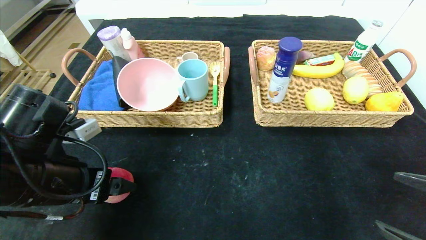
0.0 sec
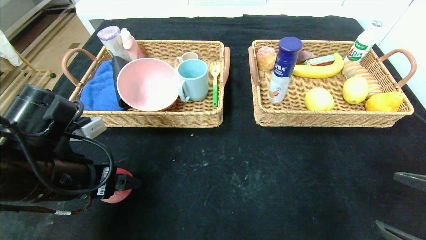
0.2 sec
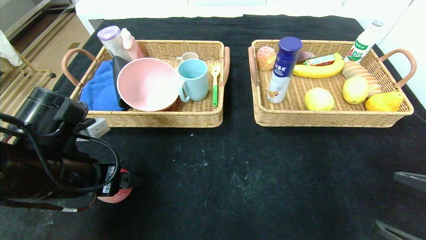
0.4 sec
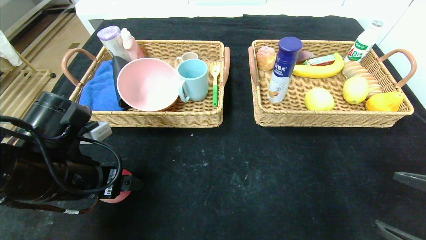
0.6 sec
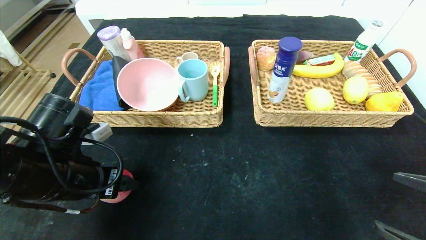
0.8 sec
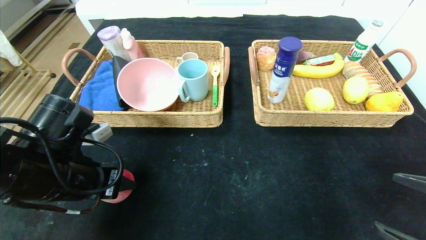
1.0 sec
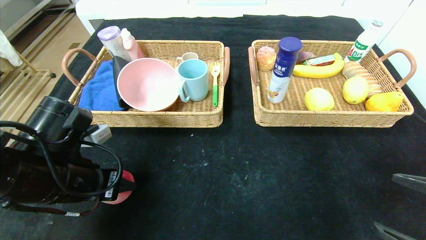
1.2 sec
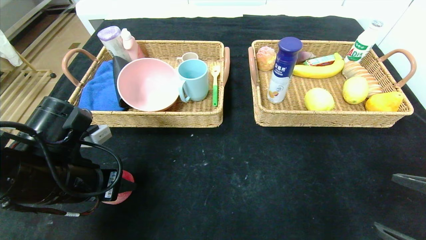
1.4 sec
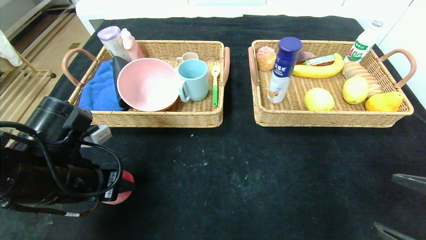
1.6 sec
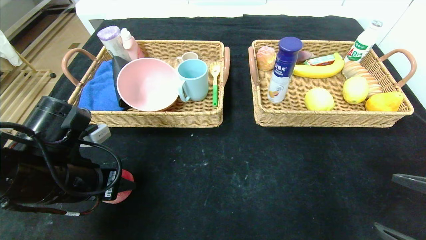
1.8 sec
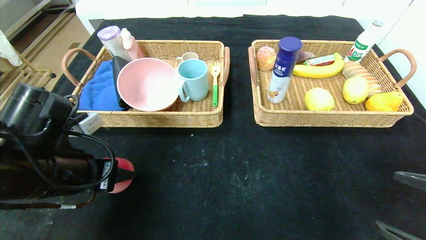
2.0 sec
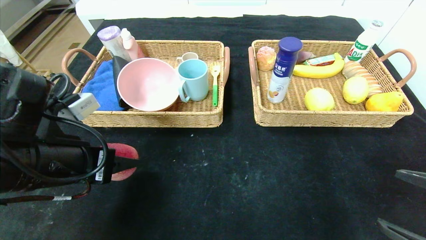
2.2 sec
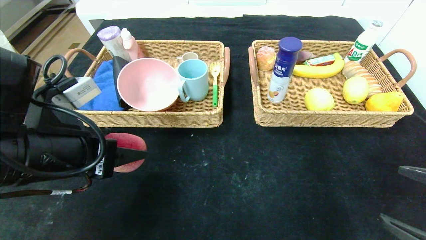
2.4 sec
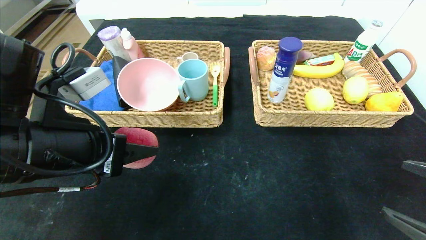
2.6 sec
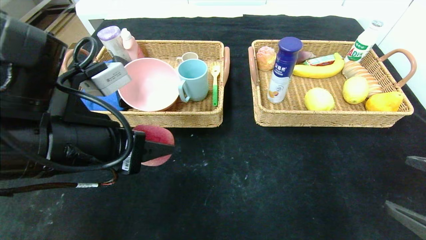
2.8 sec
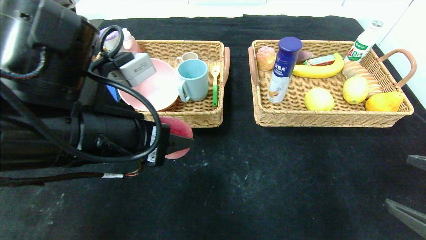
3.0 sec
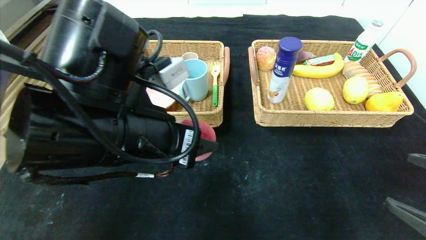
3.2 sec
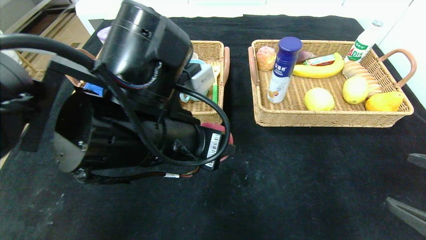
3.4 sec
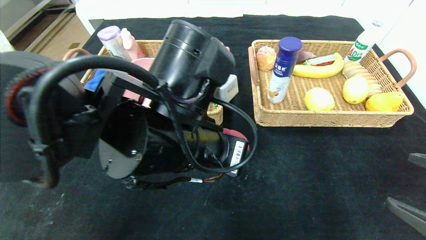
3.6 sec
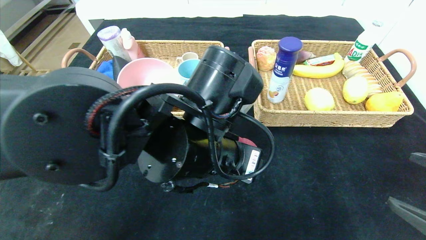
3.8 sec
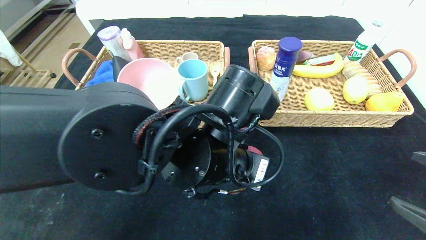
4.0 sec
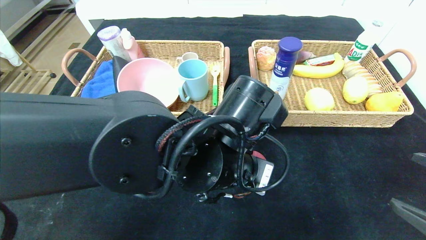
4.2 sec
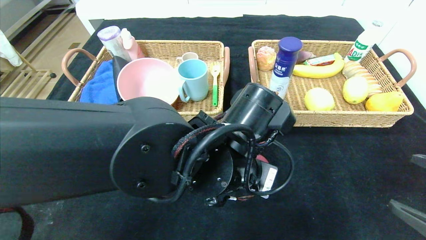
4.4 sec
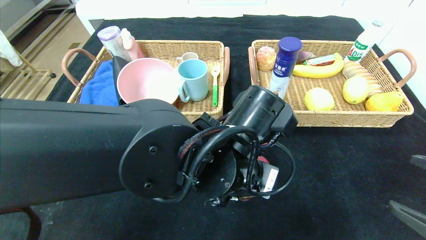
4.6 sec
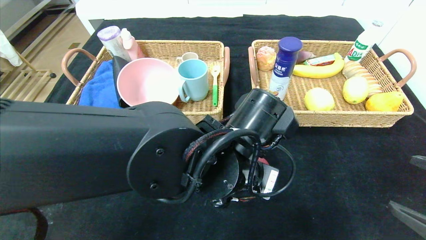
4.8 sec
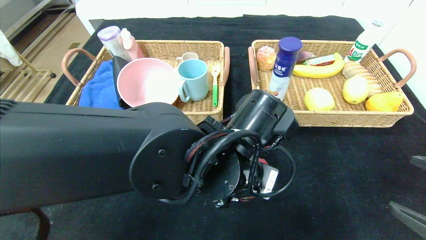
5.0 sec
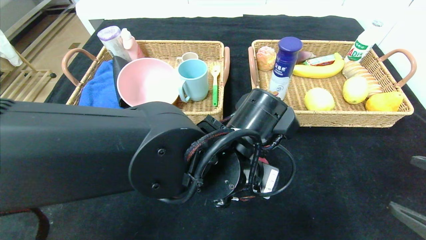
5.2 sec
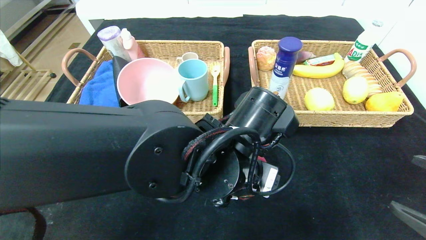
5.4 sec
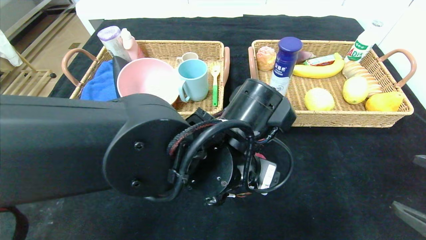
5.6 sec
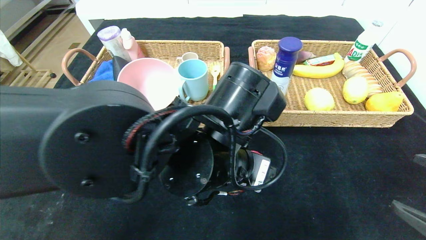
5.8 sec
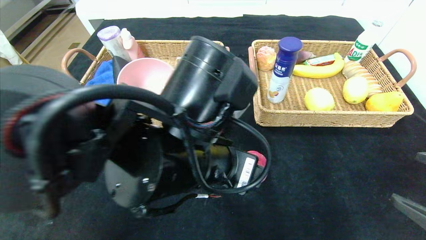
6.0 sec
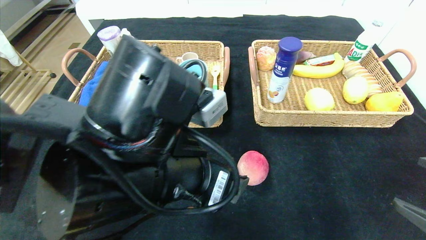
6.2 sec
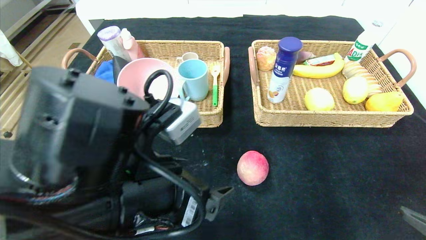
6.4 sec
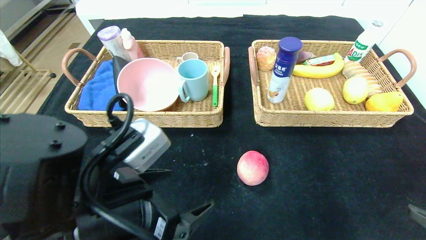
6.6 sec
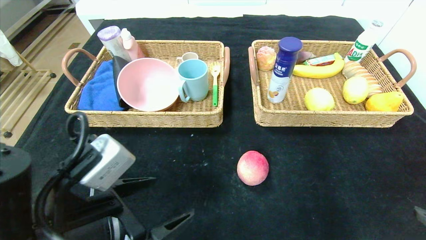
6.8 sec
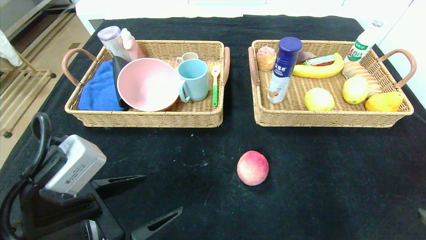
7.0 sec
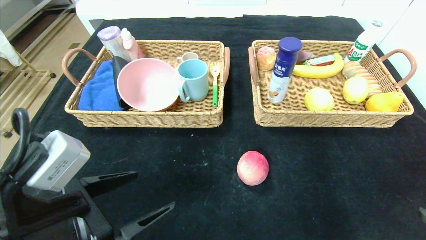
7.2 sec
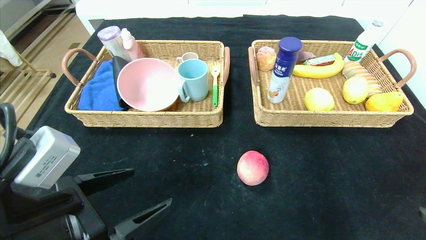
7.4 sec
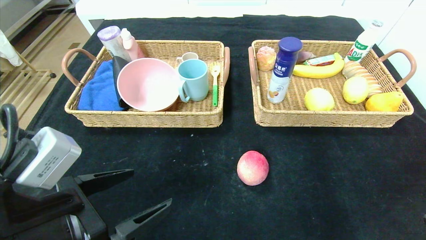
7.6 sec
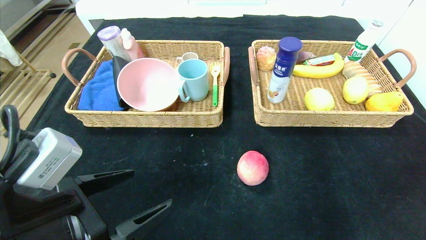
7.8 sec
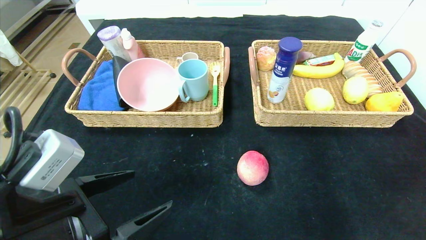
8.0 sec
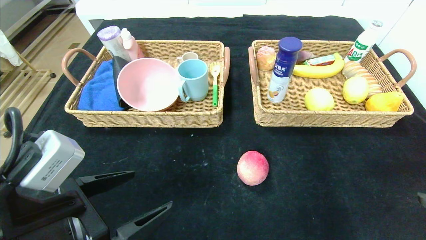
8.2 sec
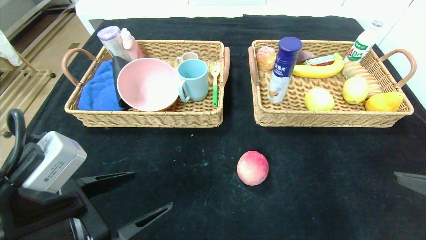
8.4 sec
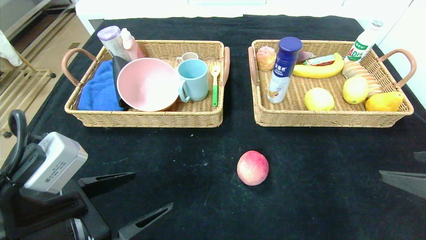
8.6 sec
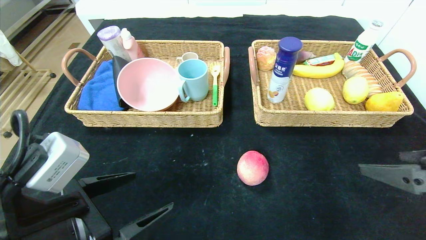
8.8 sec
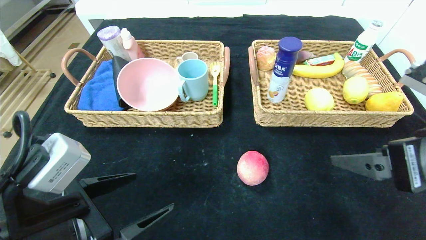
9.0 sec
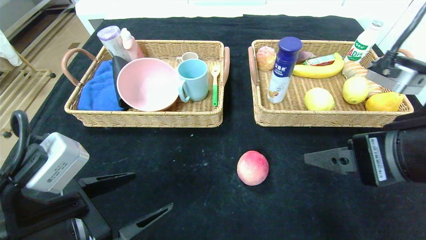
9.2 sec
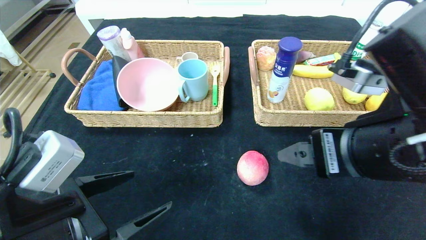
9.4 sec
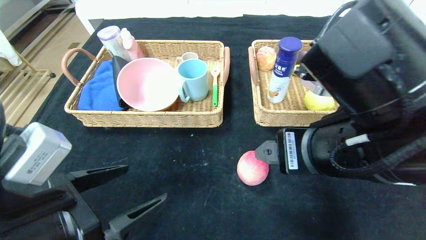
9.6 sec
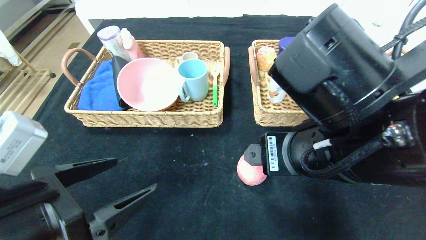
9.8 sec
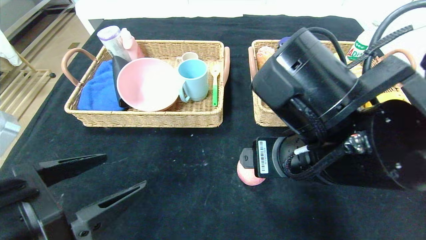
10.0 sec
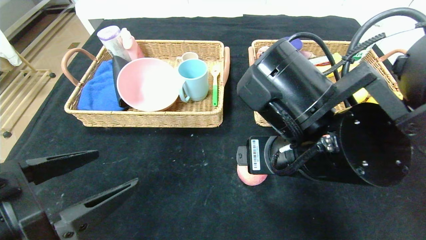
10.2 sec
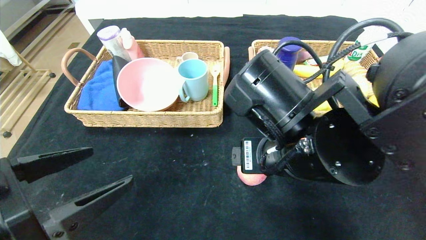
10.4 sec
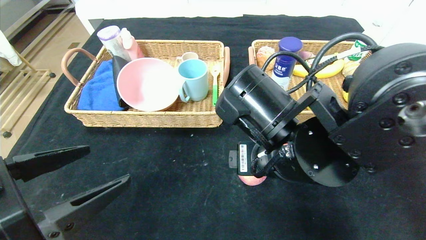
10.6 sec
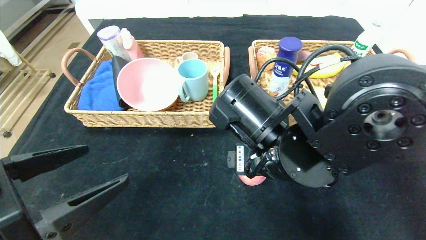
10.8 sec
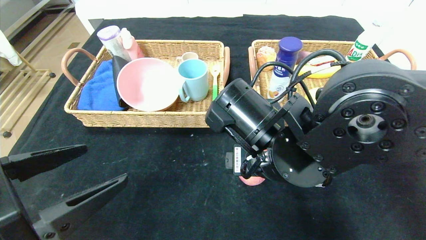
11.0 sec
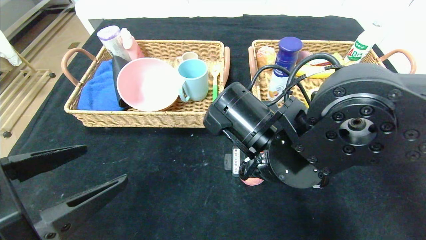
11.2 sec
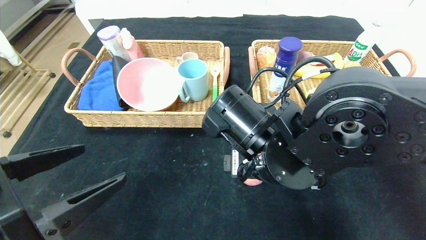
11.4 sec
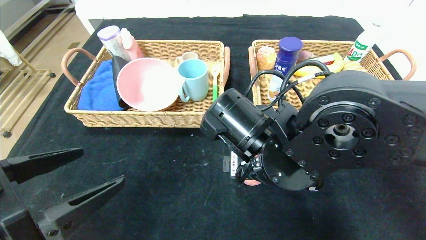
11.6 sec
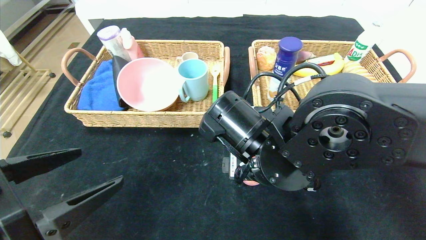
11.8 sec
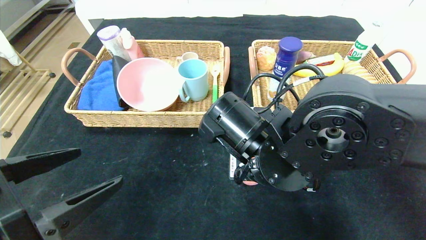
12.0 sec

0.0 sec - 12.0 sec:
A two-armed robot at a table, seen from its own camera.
Step, 0.0 sec - 5.8 sec: Place the peach in the center of the table.
0.0 sec - 1.6 sec: The left gripper closes up.
1.6 sec - 3.0 sec: The left gripper moves to the right and upward, roughly 15 cm.
3.0 sec - 4.4 sec: The left gripper heads to the right and downward, covering roughly 15 cm.
4.4 sec - 6.0 sec: The left gripper ends up about 5 cm from where it was, and opens its fingers.
6.0 sec - 7.6 sec: The left gripper moves to the left and backward, roughly 15 cm.
7.6 sec - 9.0 sec: The right gripper shifts roughly 15 cm to the left, forward and upward.
9.0 sec - 10.4 sec: The left gripper ends up some 5 cm from where it was. The right gripper heads to the left, covering some 15 cm.
10.4 sec - 12.0 sec: The right gripper moves roughly 5 cm, and closes.

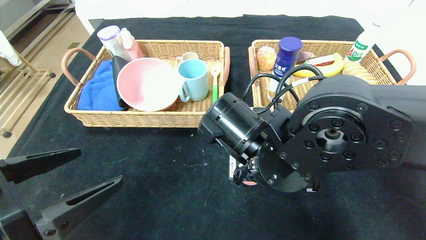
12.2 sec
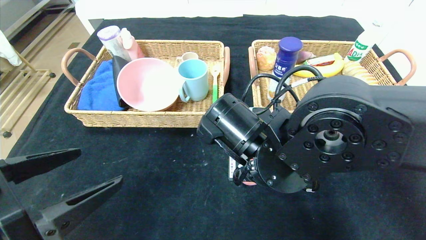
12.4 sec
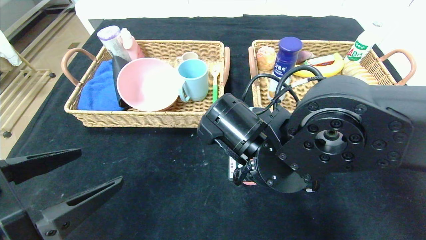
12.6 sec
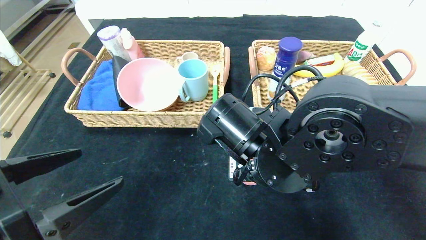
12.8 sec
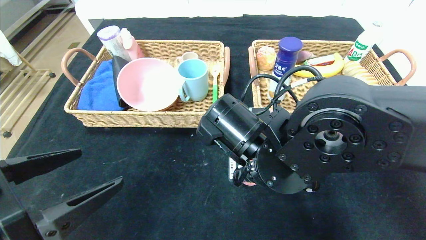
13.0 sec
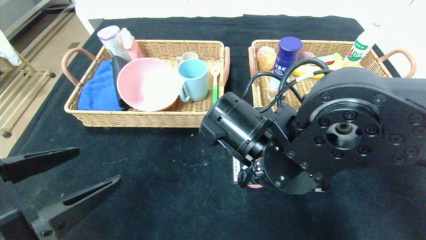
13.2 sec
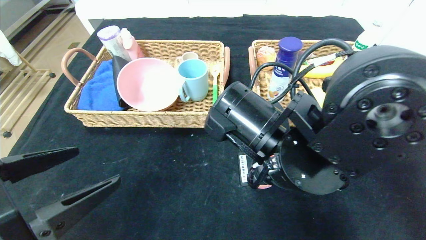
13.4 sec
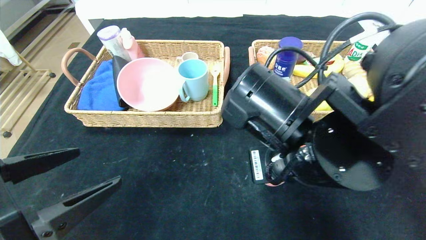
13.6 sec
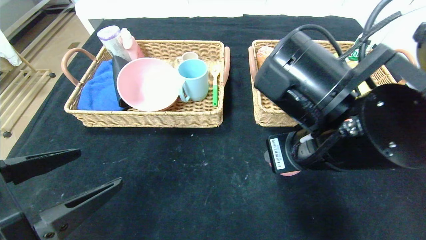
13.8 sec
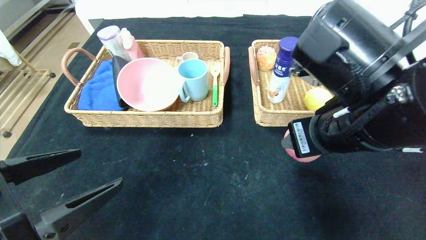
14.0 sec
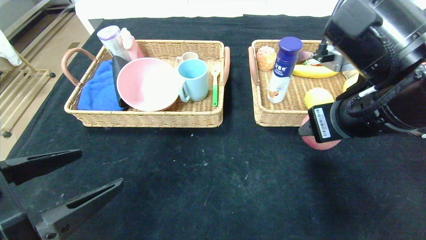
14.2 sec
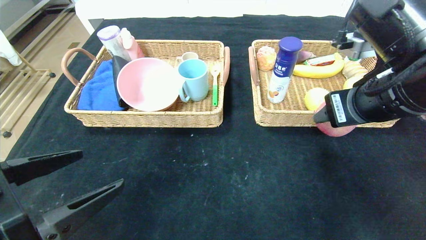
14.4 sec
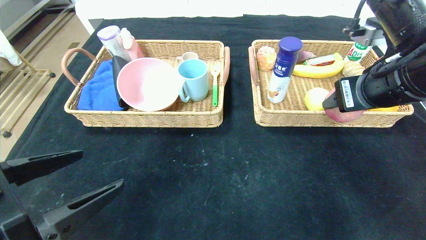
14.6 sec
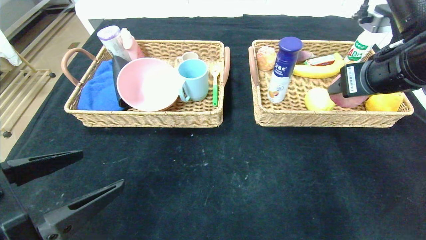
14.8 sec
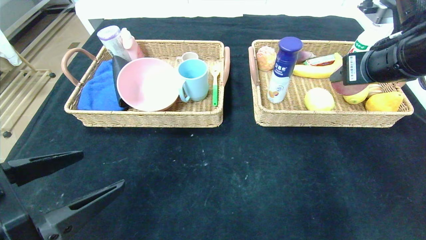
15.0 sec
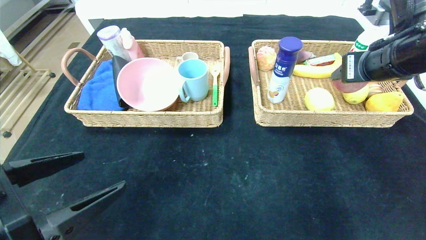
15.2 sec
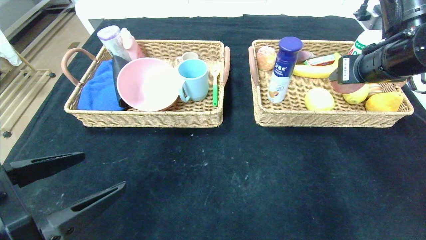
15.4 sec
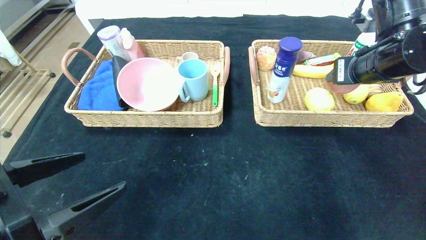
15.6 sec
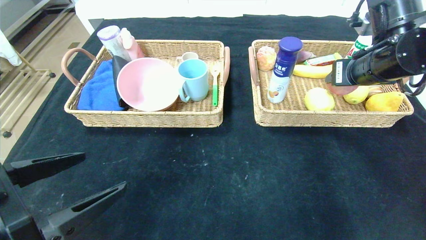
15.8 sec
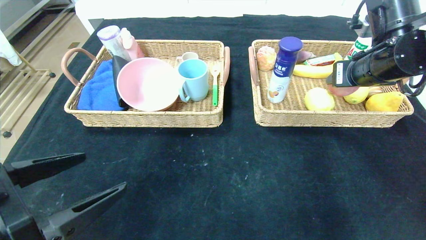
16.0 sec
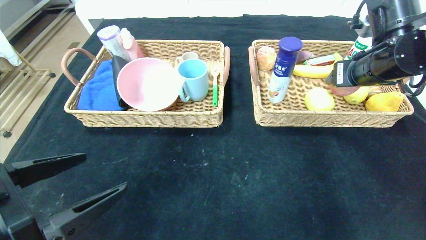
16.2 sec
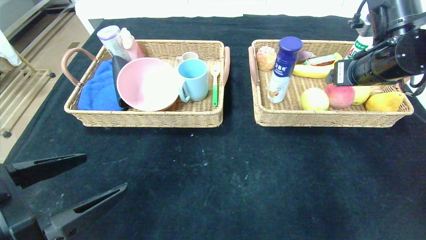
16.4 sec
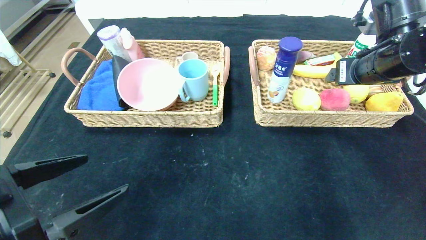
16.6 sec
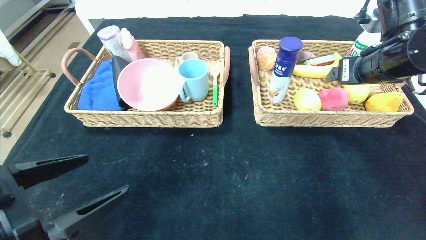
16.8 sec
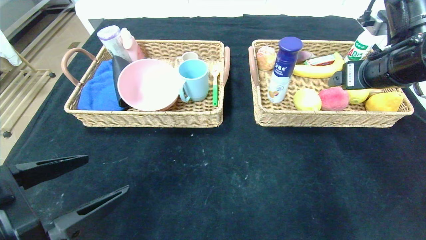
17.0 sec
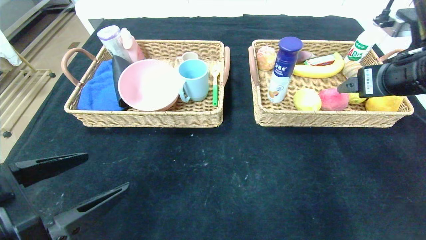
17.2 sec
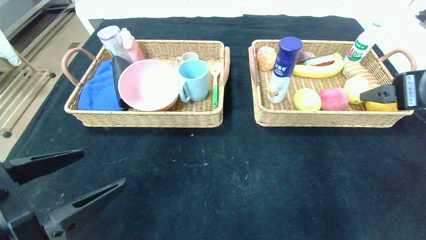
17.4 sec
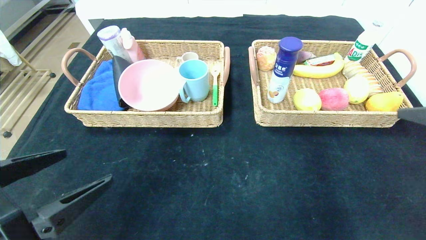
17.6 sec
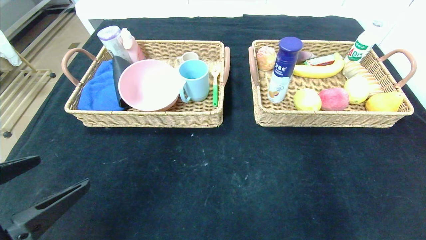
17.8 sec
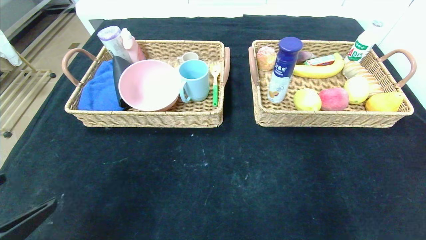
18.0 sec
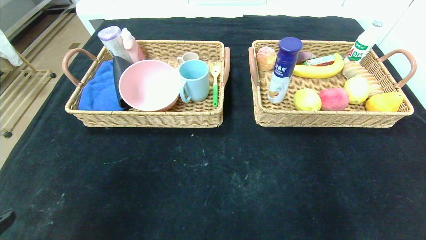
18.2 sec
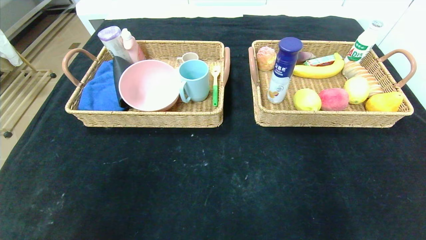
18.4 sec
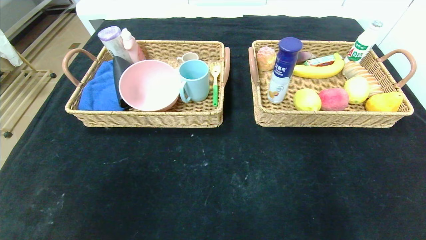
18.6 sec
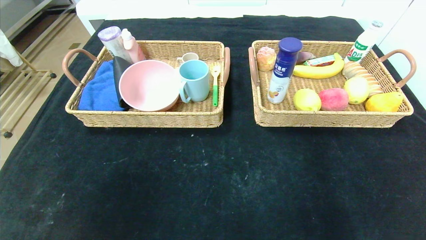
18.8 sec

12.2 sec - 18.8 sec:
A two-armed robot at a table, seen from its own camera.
Step, 12.2 sec - 17.0 sec: Grasp the peach and put it in the right basket.
12.2 sec - 13.8 sec: The right gripper is displaced upward and to the right by roughly 10 cm.
13.8 sec - 15.4 sec: The right gripper shifts roughly 20 cm to the right, forward and upward.
15.4 sec - 17.2 sec: The right gripper opens.
17.2 sec - 18.8 sec: The left gripper travels backward and to the left by approximately 15 cm, while the right gripper heads backward, covering about 40 cm.
